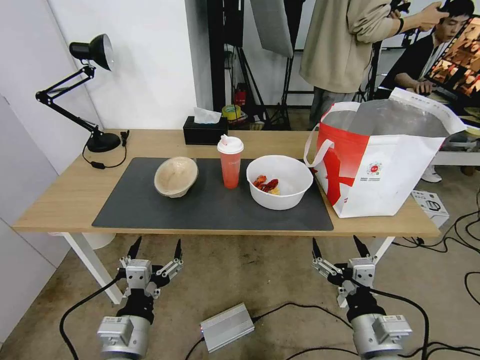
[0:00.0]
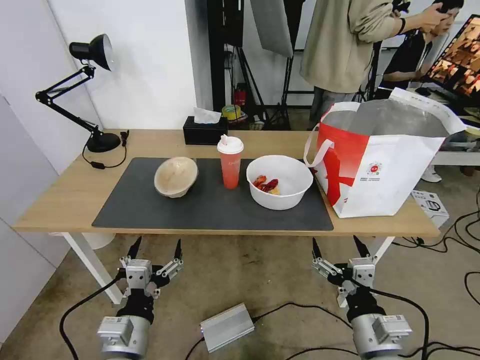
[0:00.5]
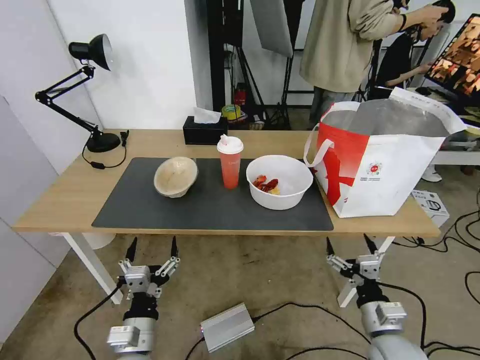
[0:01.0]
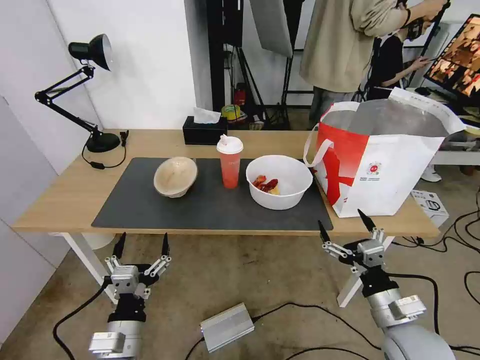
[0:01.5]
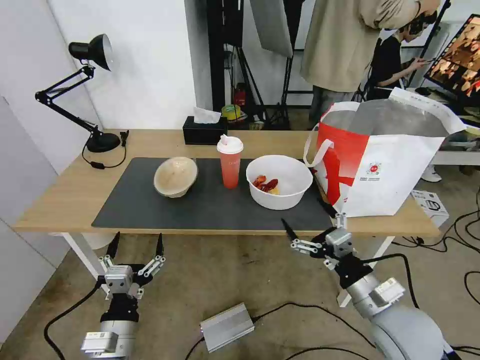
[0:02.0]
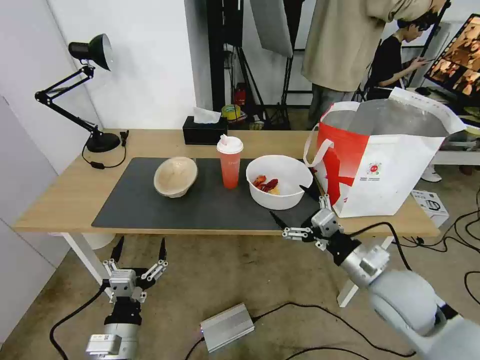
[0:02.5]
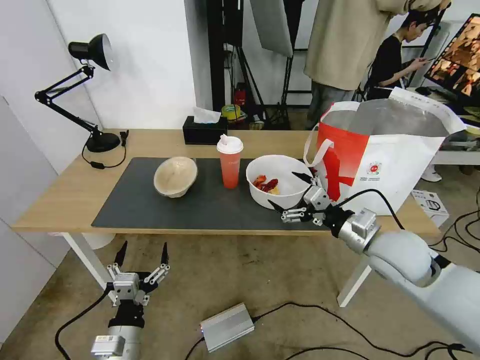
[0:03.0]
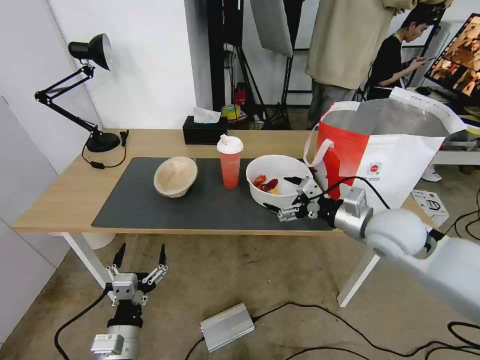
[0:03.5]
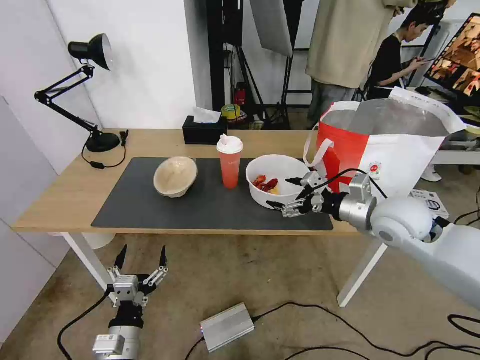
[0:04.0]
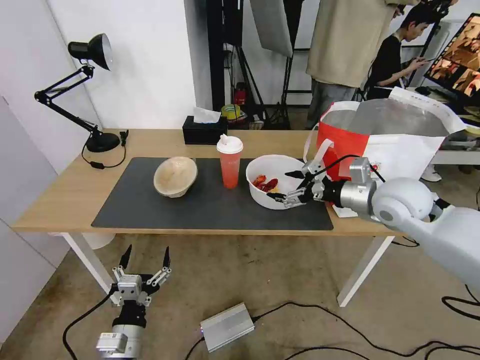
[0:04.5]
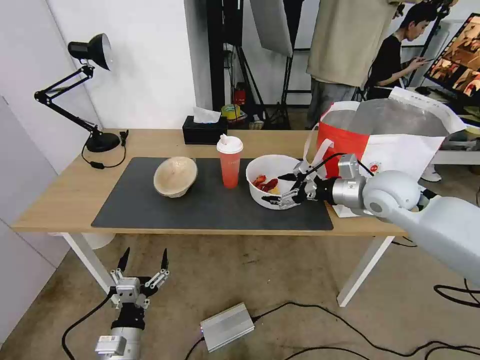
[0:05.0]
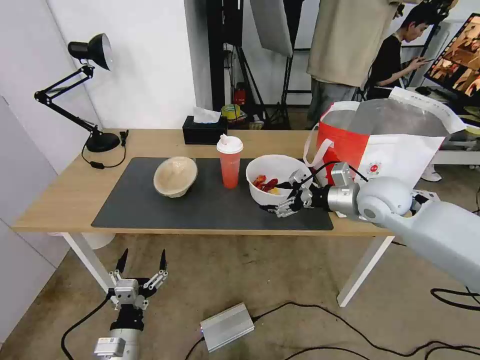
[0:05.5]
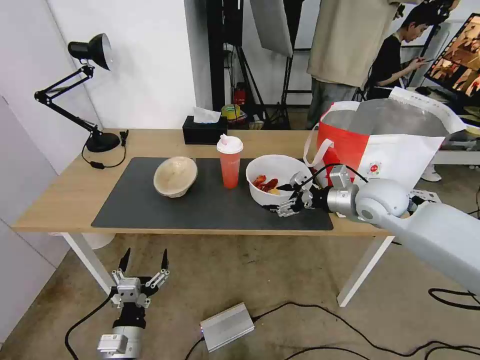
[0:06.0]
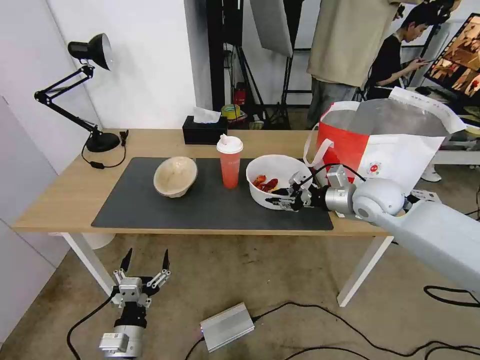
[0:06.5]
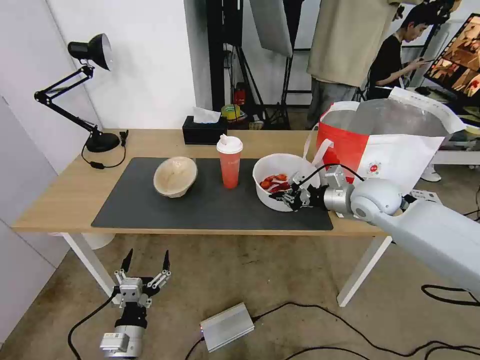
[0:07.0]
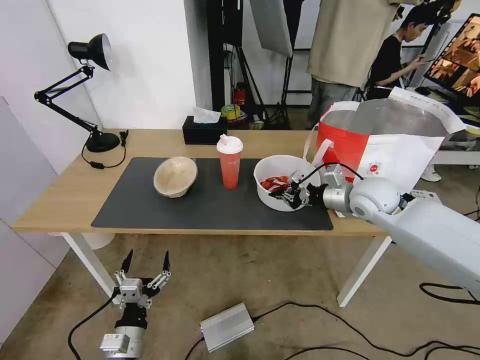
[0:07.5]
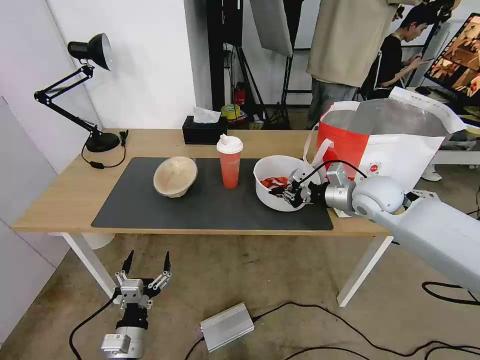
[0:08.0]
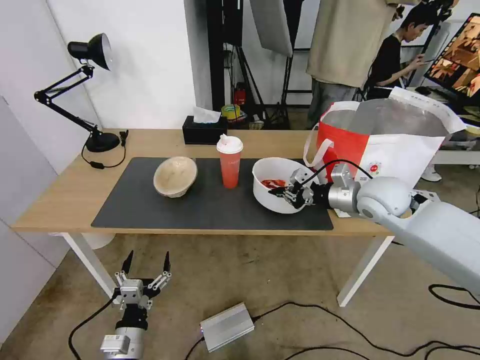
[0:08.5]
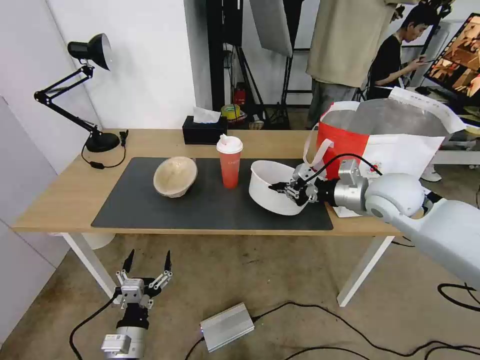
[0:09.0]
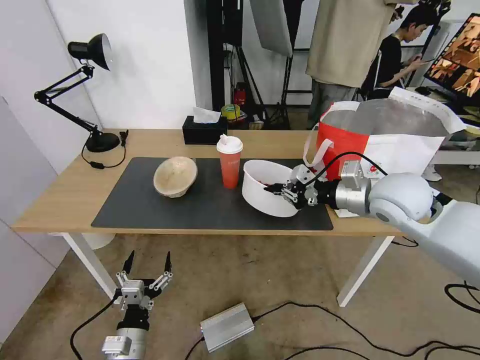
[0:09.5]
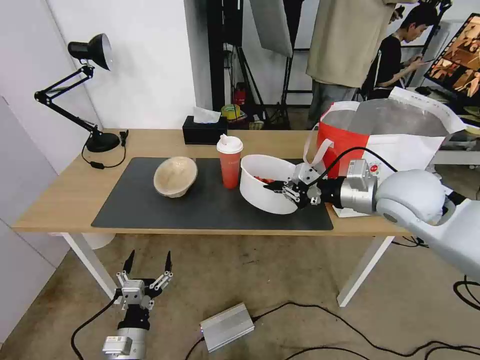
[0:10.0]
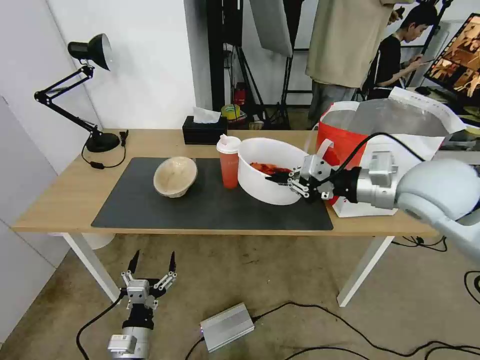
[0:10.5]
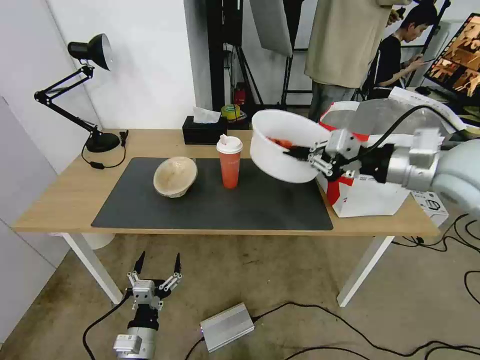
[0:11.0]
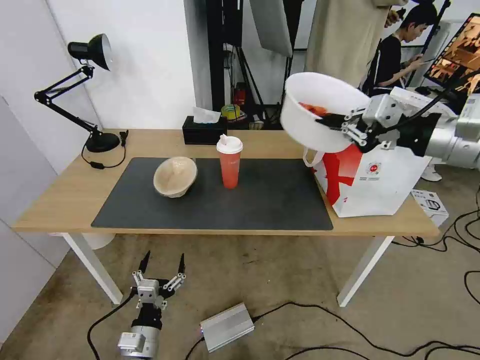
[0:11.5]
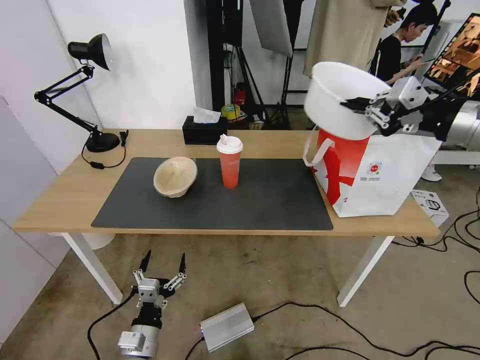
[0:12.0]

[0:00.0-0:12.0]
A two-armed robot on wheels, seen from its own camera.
Task of the whole recording: Pick up the trash from the table and place it into the takeout bag.
0:02.0 to 0:04.0: The right gripper is displaced forward and upward by about 20 cm.
0:04.0 to 0:06.0: The right gripper travels forward by approximately 5 cm.
0:06.0 to 0:08.0: The right gripper closes.
0:08.0 to 0:10.0: The right gripper travels upward and backward by about 10 cm.
0:10.0 to 0:12.0: The right gripper goes approximately 20 cm upward and to the right.

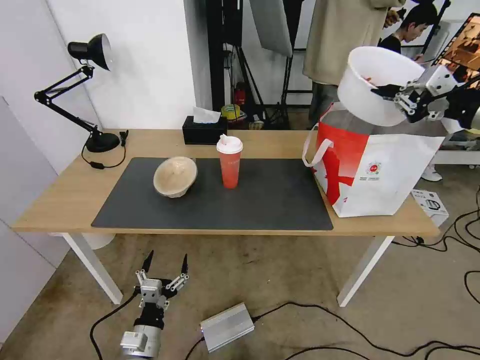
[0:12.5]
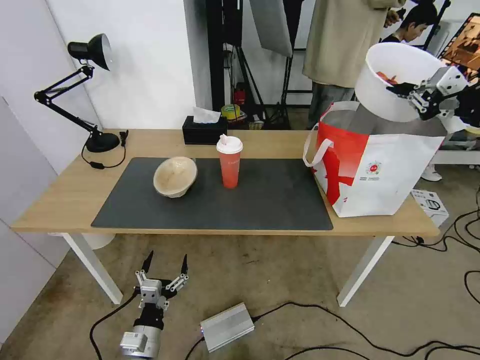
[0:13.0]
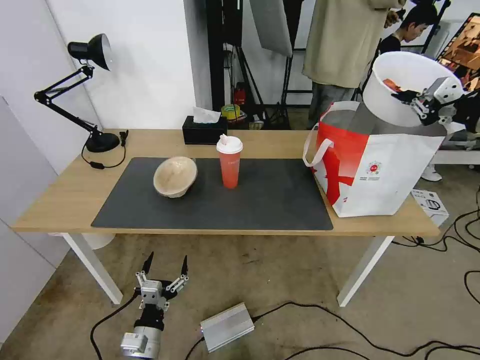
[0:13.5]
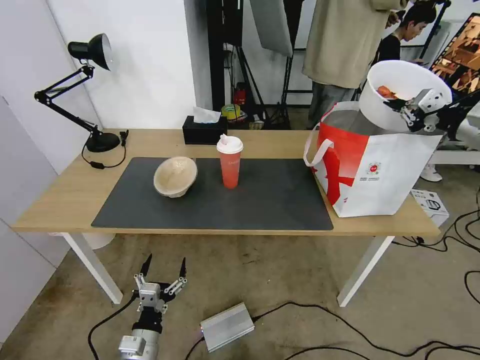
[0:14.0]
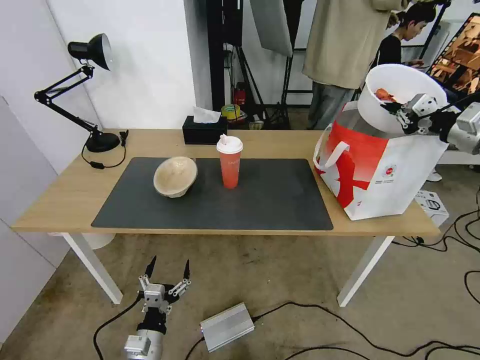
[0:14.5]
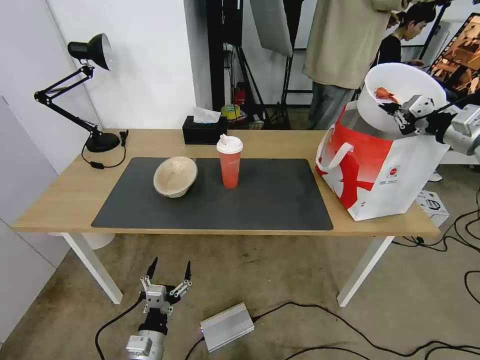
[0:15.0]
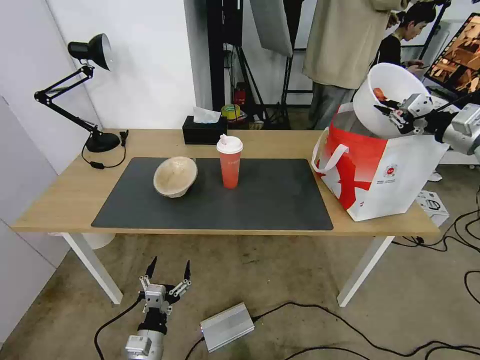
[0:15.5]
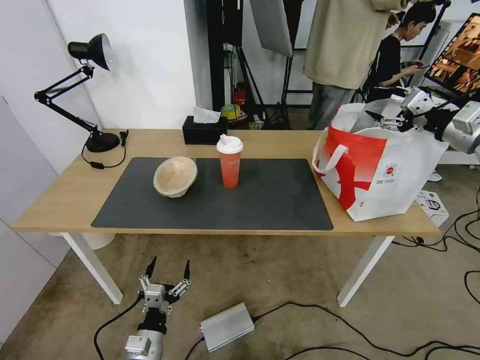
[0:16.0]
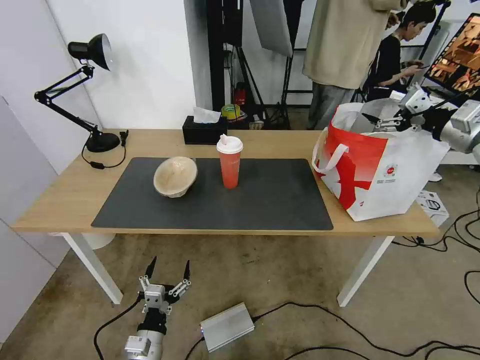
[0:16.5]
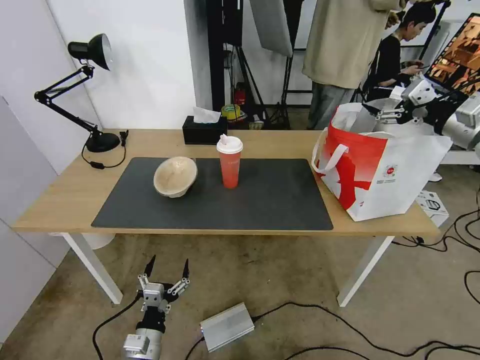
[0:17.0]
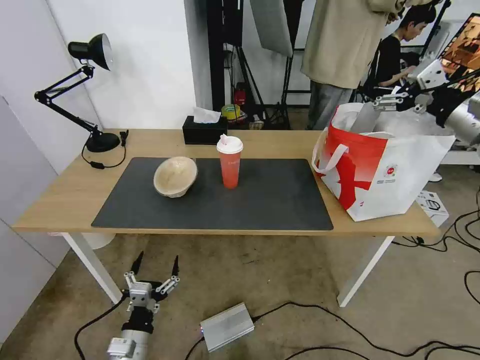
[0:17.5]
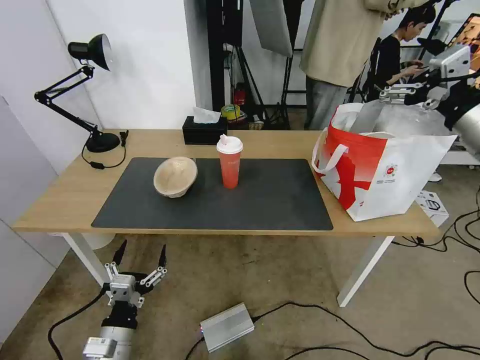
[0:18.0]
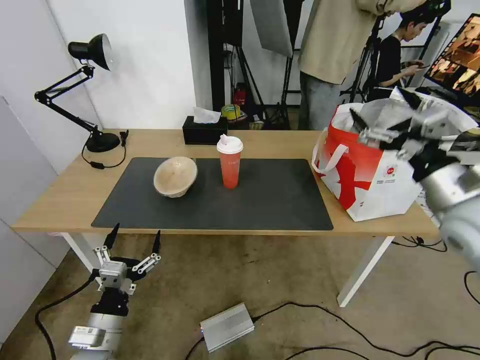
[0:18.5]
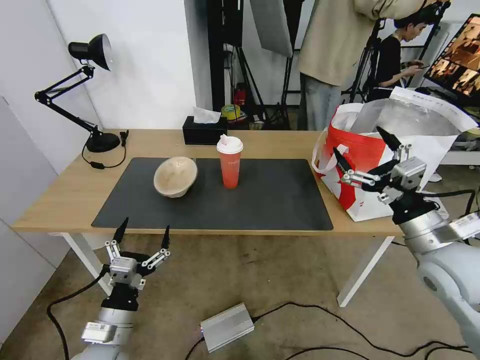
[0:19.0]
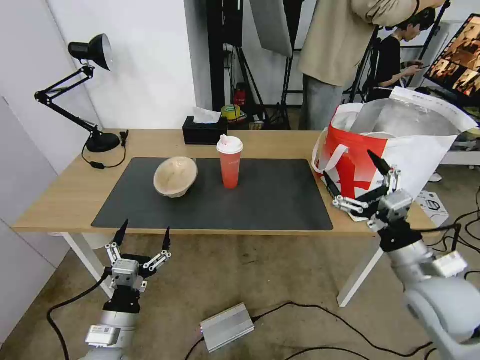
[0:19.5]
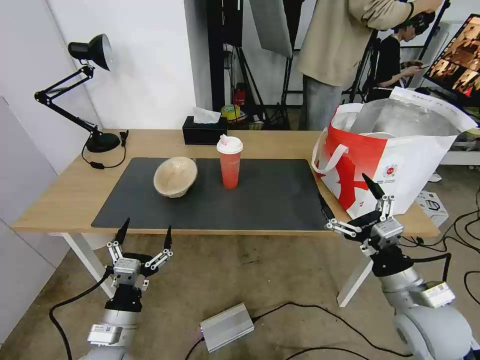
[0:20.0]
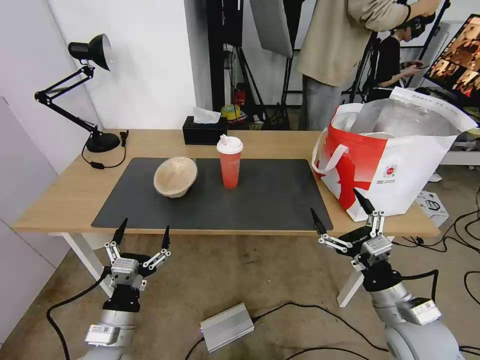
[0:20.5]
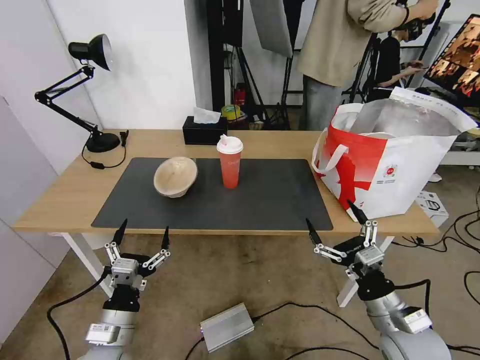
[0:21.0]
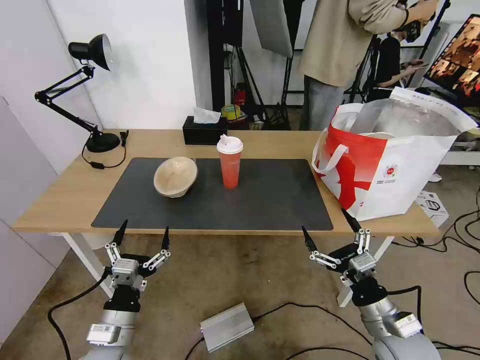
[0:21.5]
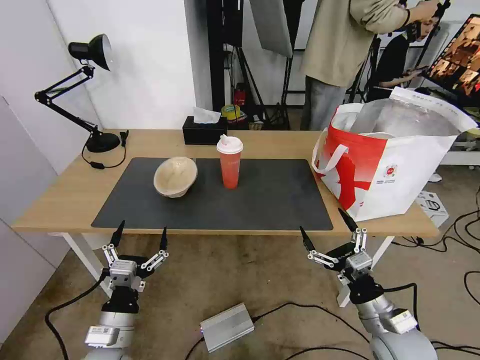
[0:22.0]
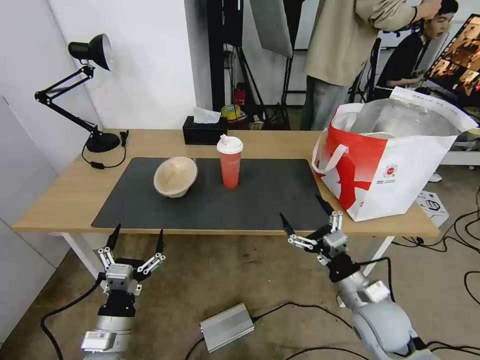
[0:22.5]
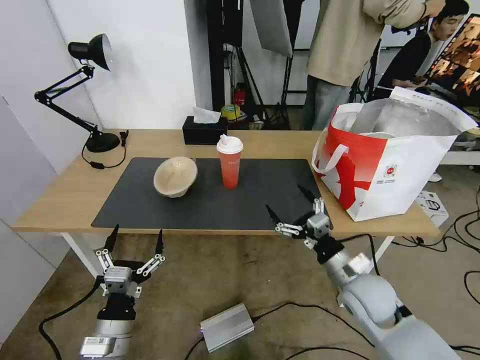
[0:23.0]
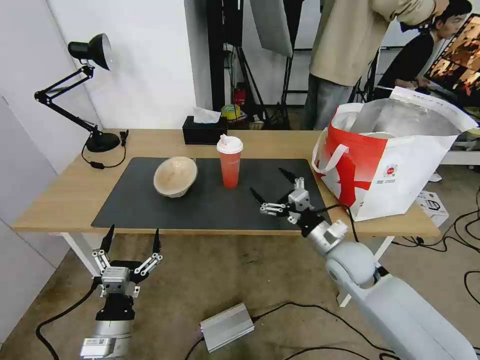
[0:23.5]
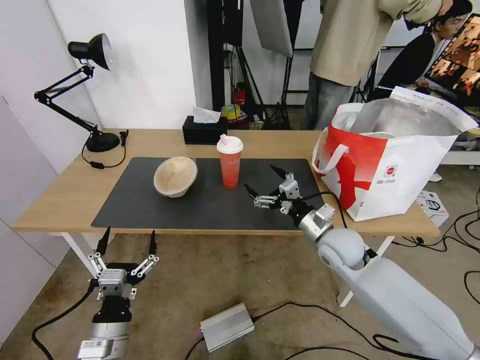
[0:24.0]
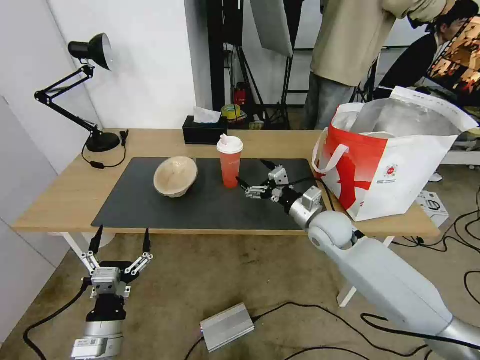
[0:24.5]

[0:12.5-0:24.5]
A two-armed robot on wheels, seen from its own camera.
Task of the whole recording: Pick up the trash from the table and place it into the takeout bag.
0:12.5 to 0:14.5: The right gripper heads downward, forward and to the right, covering some 15 cm.
0:14.5 to 0:16.5: The right gripper opens up.
0:16.5 to 0:18.5: The right gripper moves backward and to the left, approximately 15 cm. The left gripper travels upward and to the left by some 10 cm.
0:18.5 to 0:20.5: The right gripper goes roughly 25 cm downward and backward.
0:20.5 to 0:22.5: The right gripper shifts by approximately 5 cm.
0:22.5 to 0:24.5: The right gripper moves forward, about 20 cm.

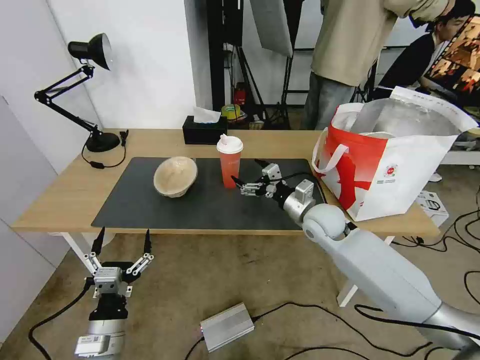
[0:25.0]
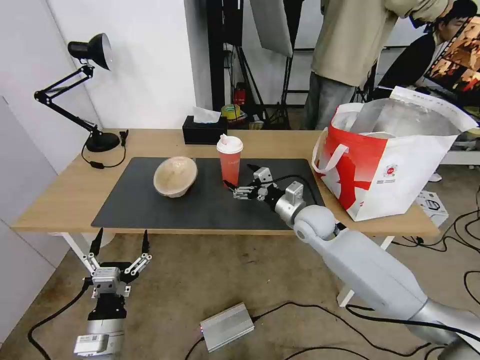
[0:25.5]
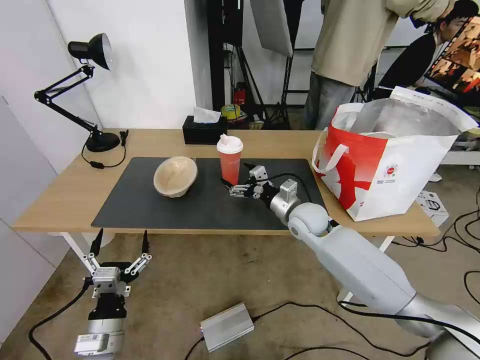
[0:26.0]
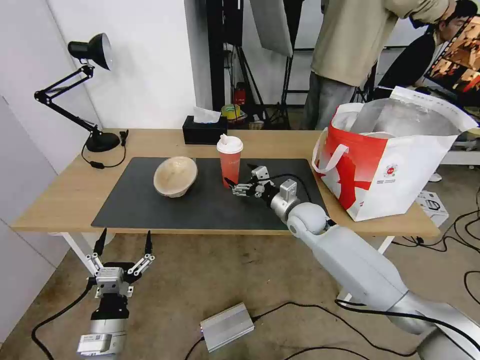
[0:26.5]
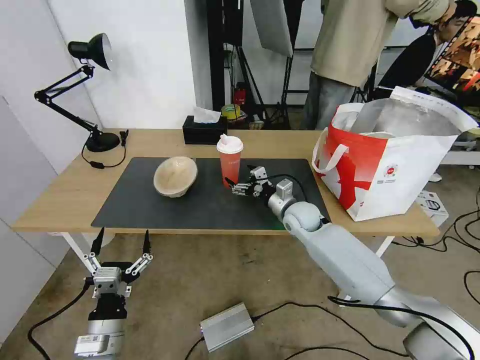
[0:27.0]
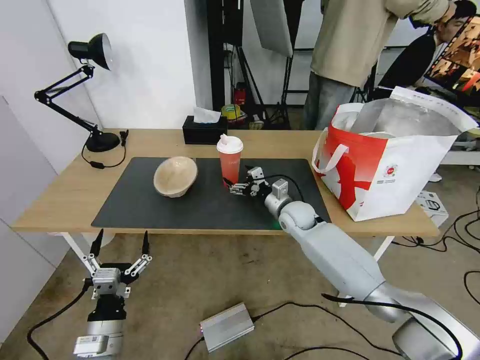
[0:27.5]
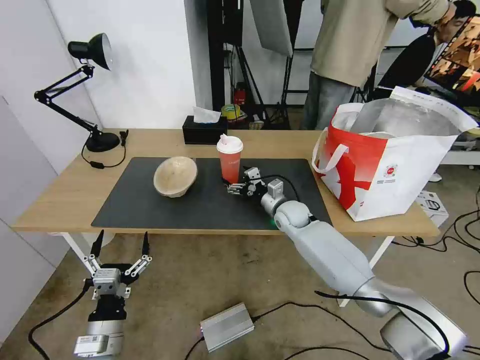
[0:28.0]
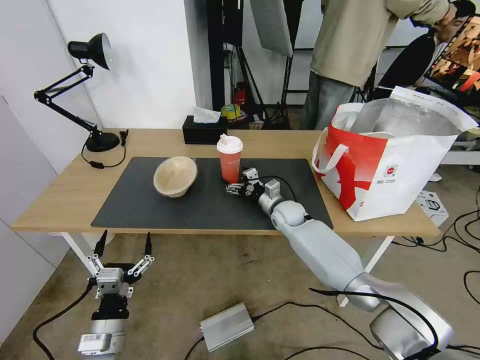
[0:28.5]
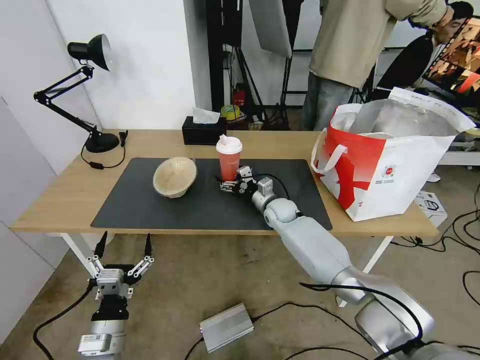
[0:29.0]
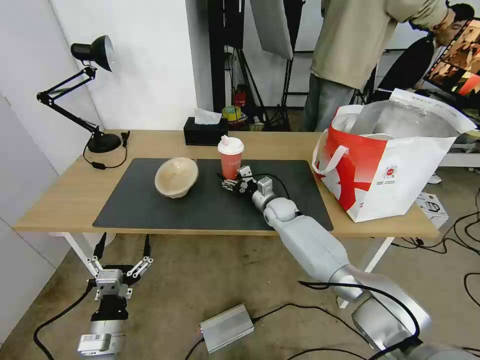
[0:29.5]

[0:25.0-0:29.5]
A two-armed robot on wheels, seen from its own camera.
Task of the whole recording: Pick up the trash from the table and place it into the takeout bag.
0:25.0 to 0:27.0: The right gripper heads forward, covering approximately 5 cm.
0:27.0 to 0:29.5: The right gripper shifts about 5 cm forward.
